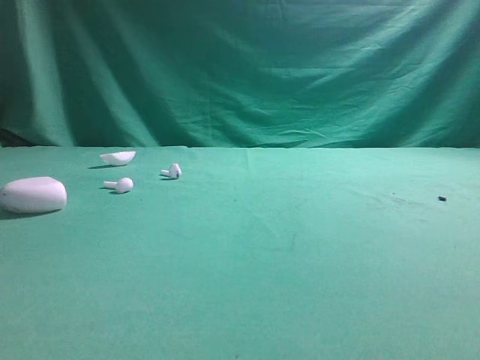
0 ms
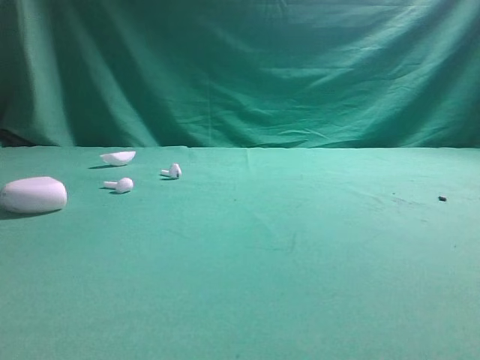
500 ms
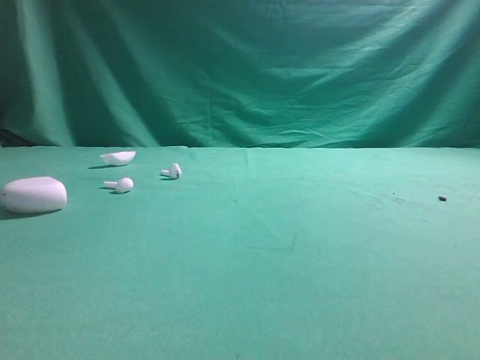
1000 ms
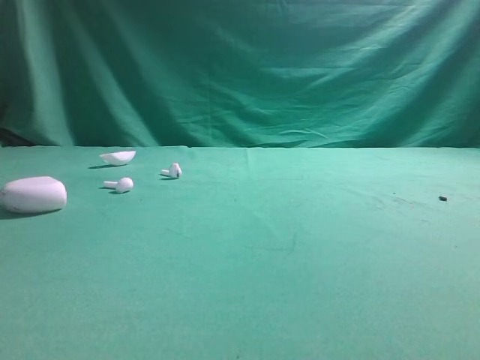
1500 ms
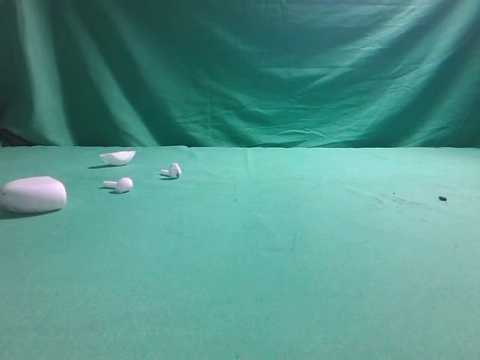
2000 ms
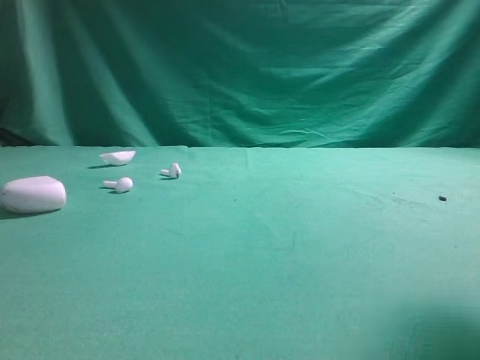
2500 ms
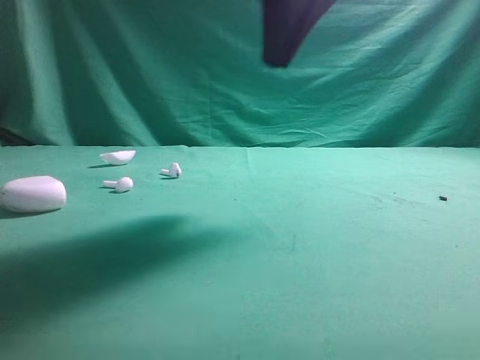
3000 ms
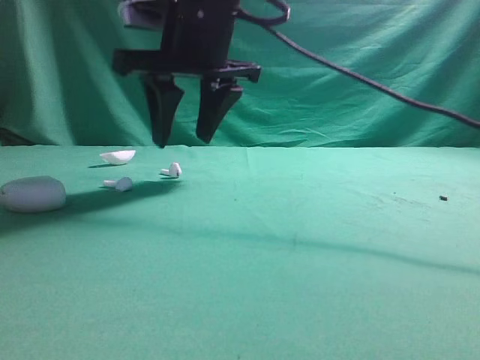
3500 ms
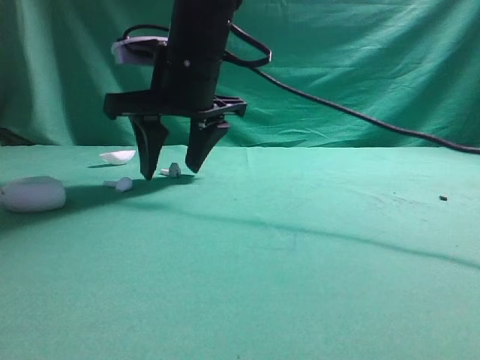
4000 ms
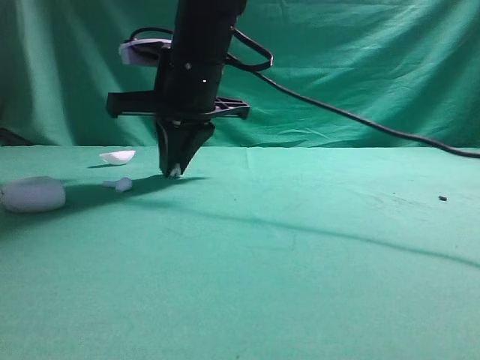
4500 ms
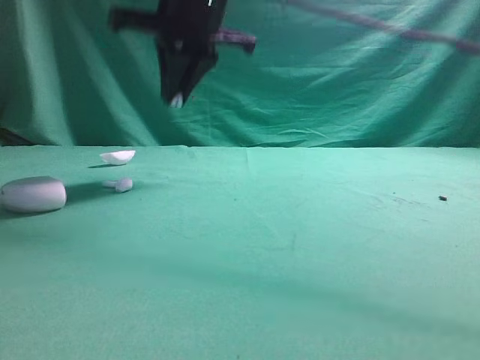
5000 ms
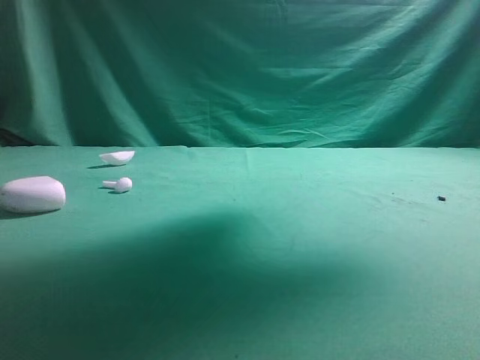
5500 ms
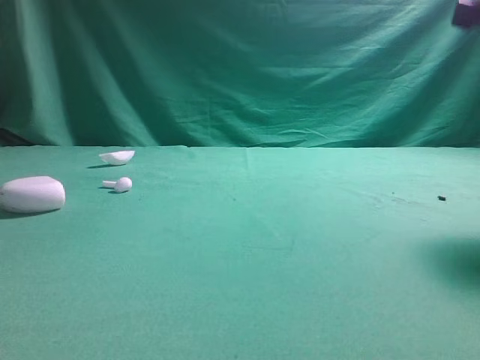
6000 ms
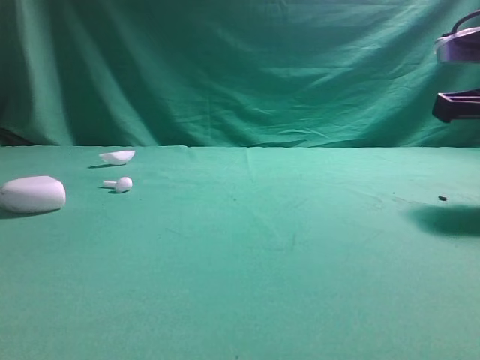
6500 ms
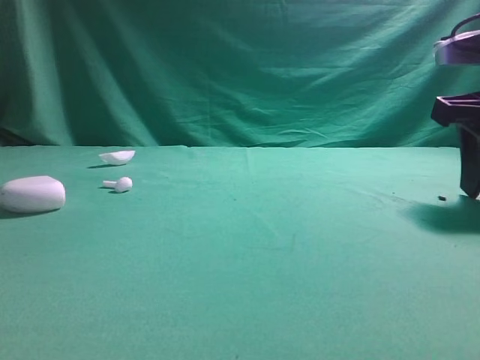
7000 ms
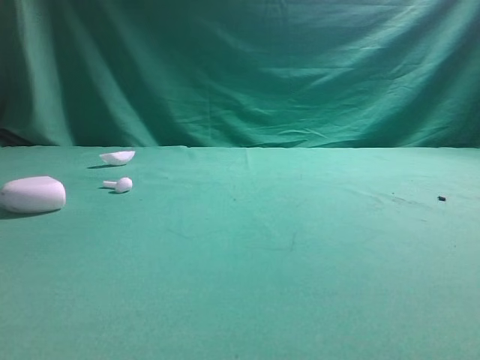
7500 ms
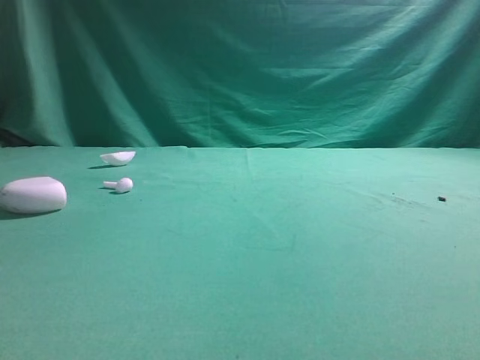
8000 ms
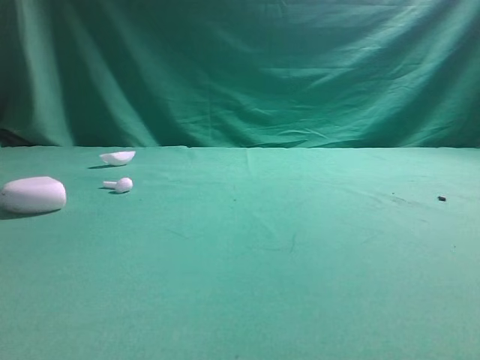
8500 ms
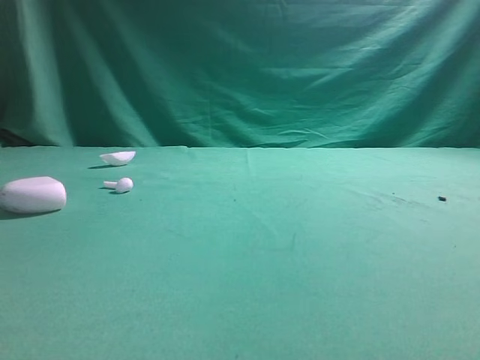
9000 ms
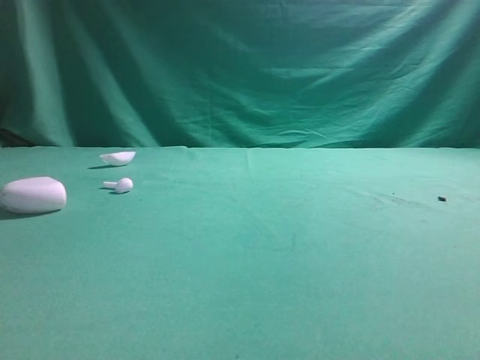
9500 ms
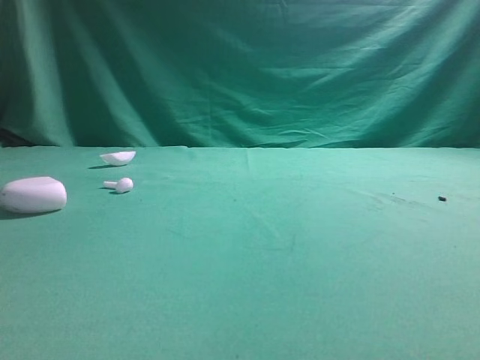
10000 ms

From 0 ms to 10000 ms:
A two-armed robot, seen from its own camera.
Step, from 0 ms to 4500 ms: Grasp the Bluetooth earbud.
Step, from 5000 ms to 7000 ms: Place bluetooth earbud on the right side of the table.

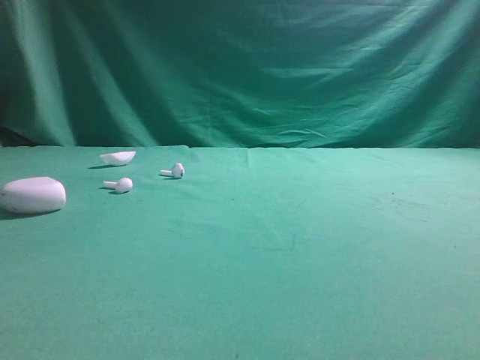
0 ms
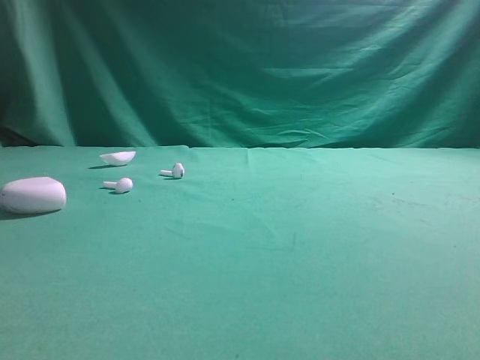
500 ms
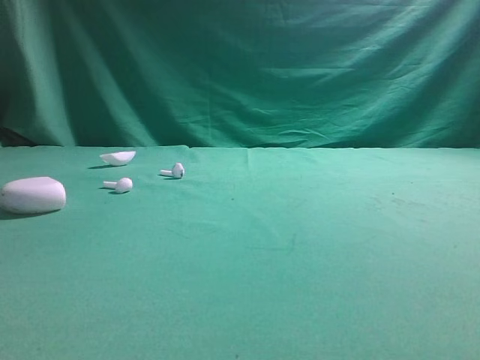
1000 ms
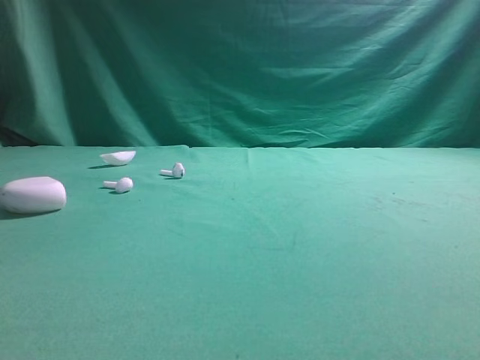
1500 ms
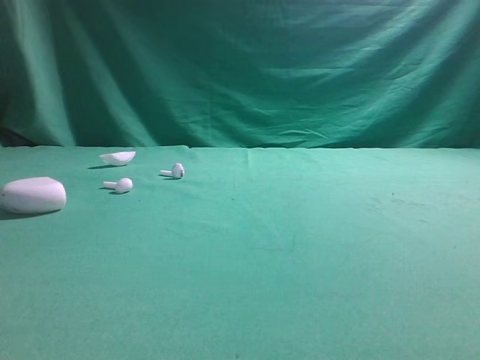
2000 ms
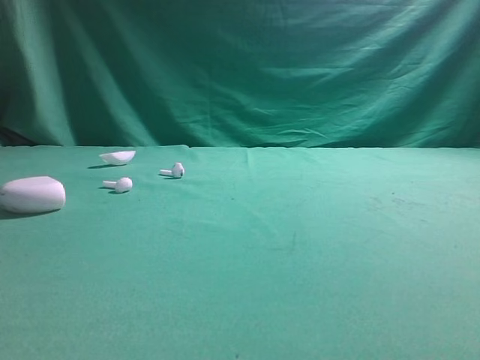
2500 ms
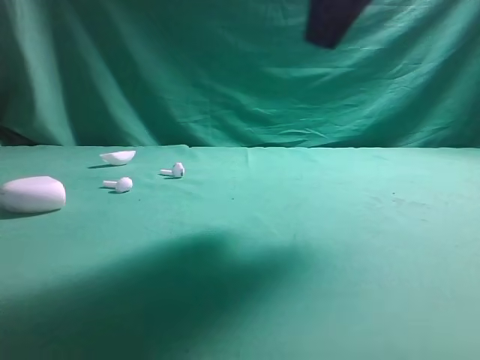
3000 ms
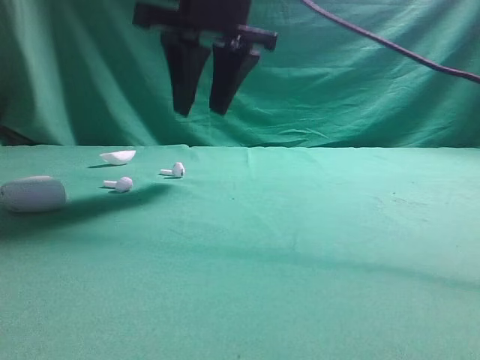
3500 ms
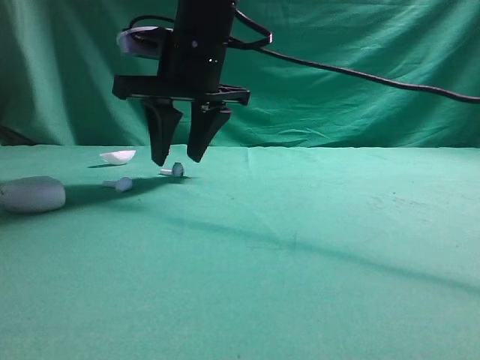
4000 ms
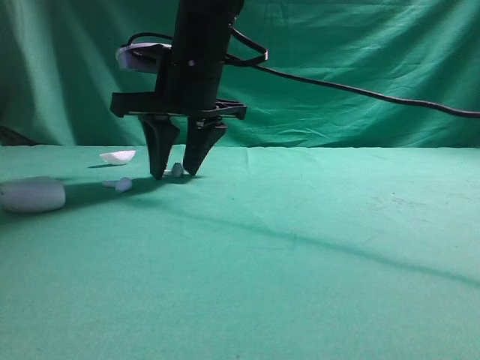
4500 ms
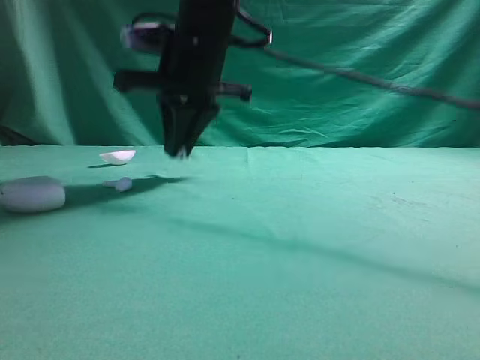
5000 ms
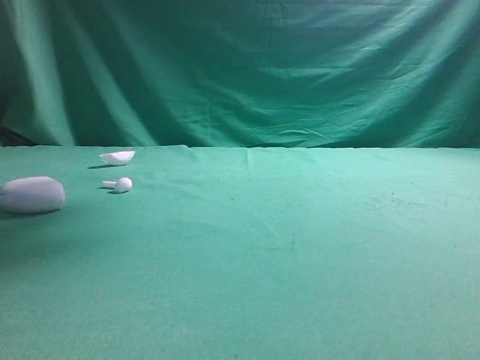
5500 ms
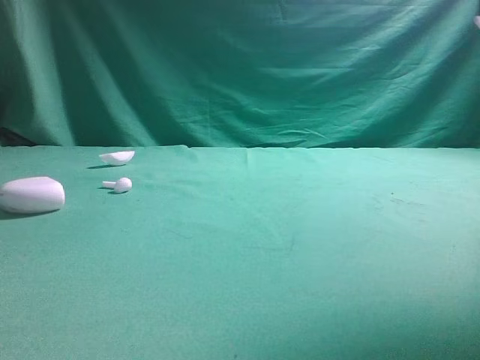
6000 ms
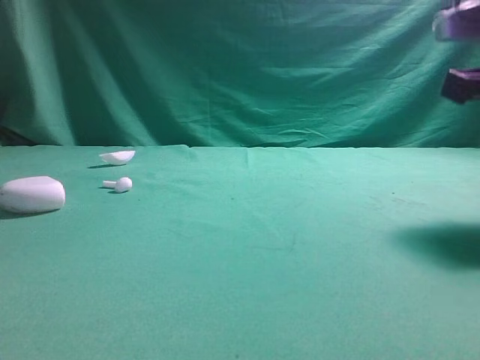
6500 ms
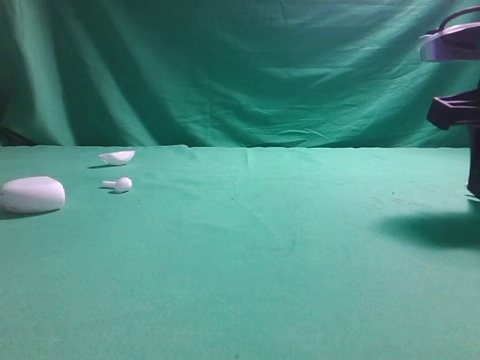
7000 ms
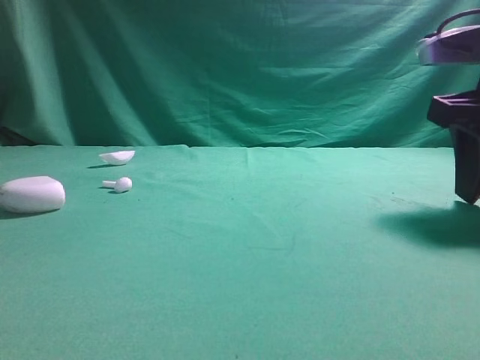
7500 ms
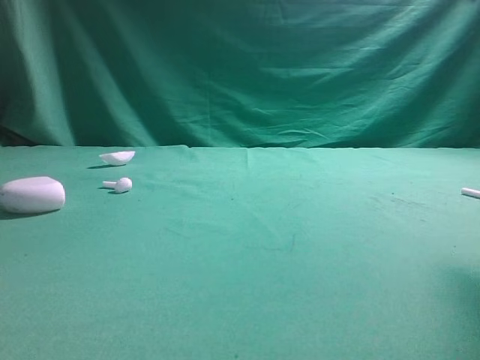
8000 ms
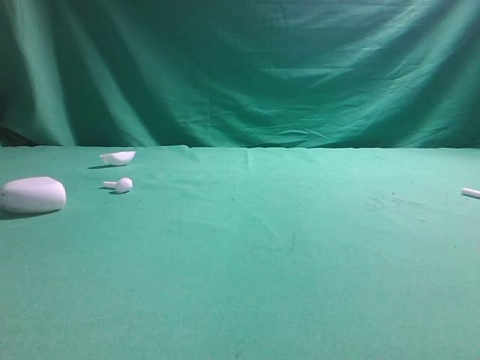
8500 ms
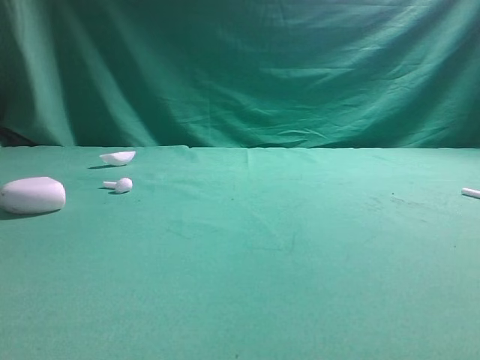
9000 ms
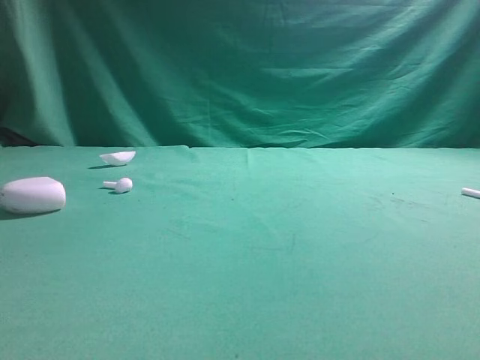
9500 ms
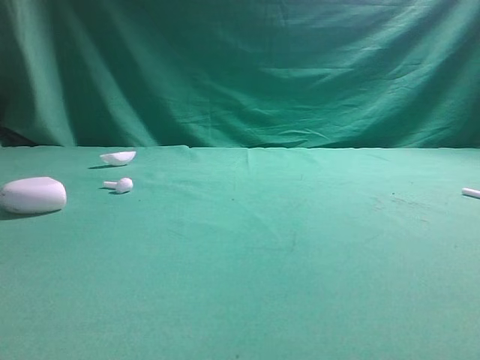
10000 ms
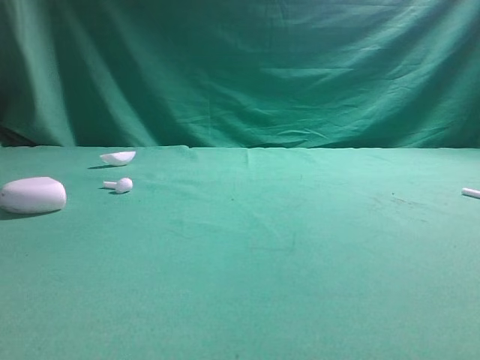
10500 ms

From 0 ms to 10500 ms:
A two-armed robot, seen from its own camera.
Step, from 0 ms to 5000 ms: Grasp the Bluetooth earbud.
Step, from 5500 ms to 7500 ms: Place bluetooth earbud on the right side of the table.

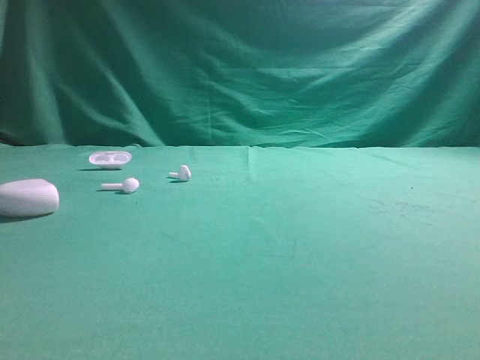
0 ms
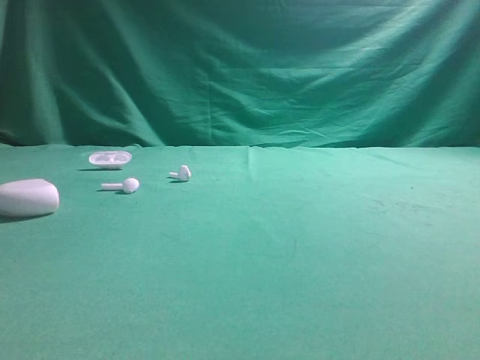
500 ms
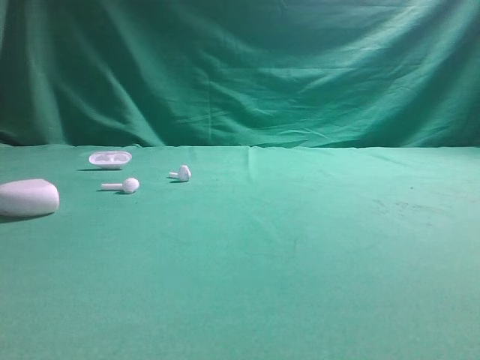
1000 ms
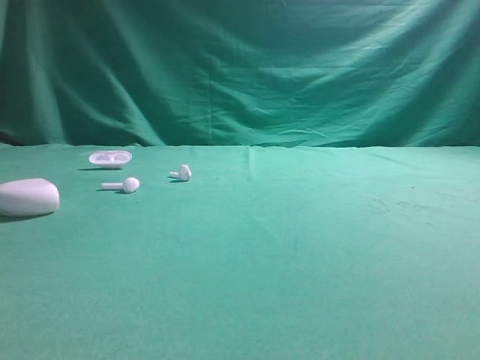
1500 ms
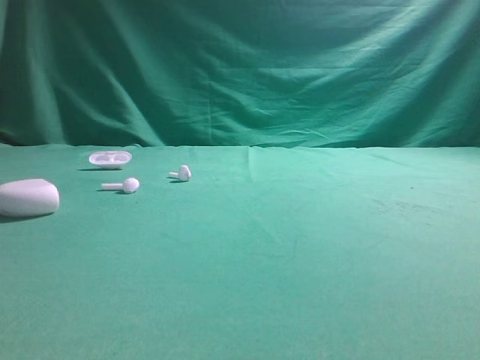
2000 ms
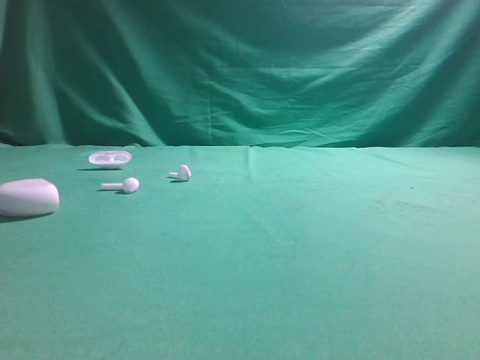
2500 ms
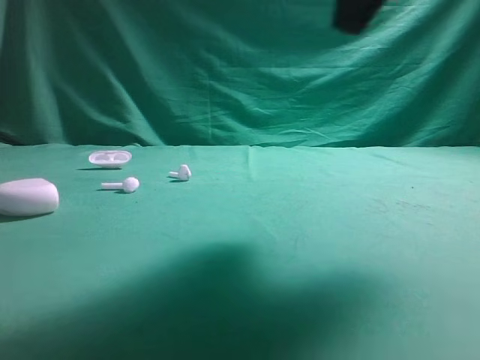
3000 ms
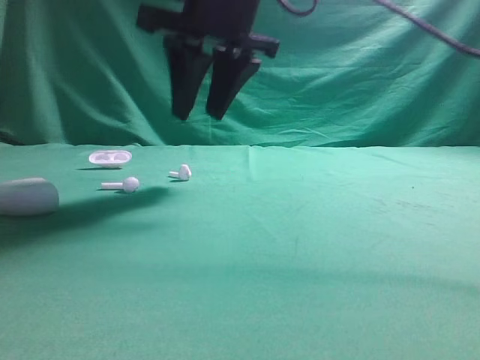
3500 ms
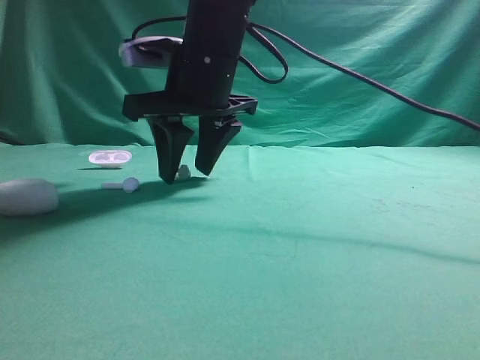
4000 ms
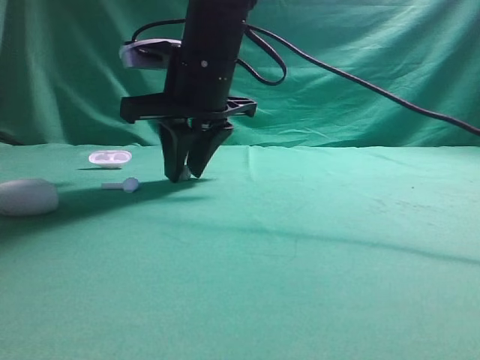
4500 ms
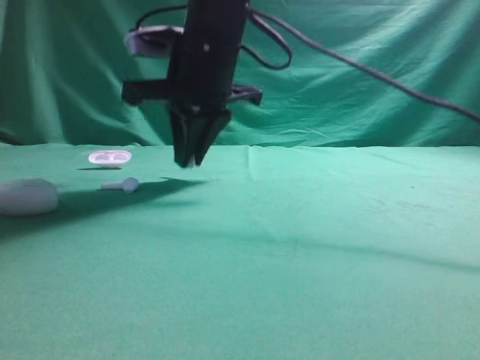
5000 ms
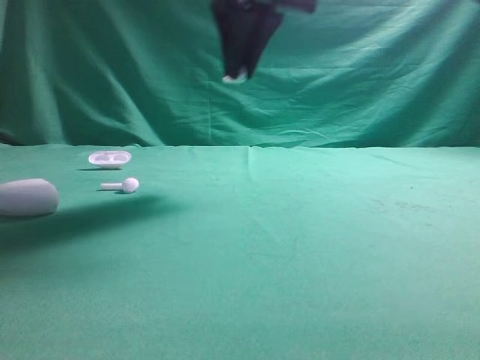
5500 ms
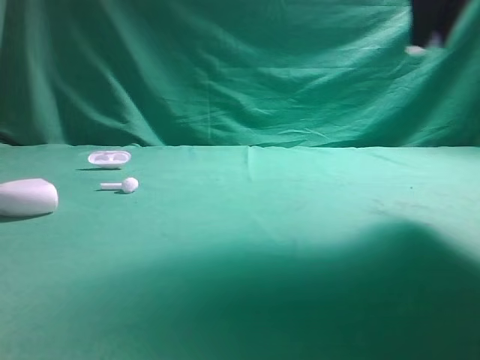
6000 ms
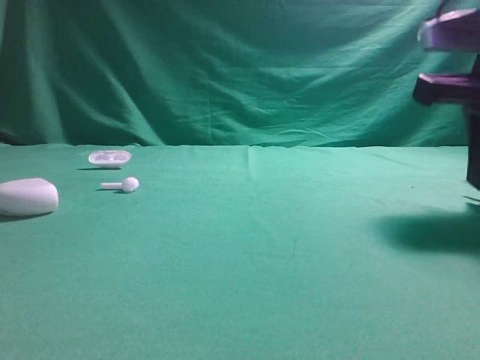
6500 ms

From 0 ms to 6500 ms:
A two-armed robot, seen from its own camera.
Step, from 0 ms to 5000 ms: Grasp the Bluetooth earbud.
